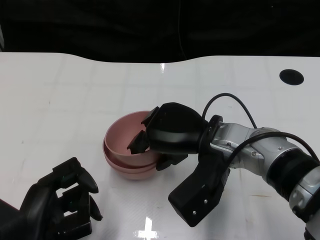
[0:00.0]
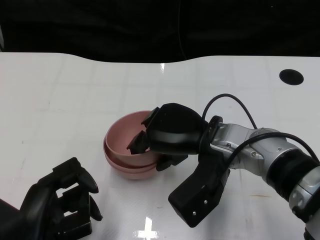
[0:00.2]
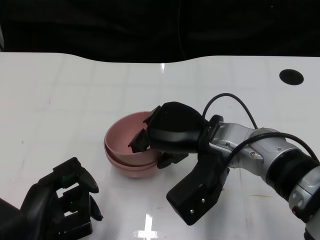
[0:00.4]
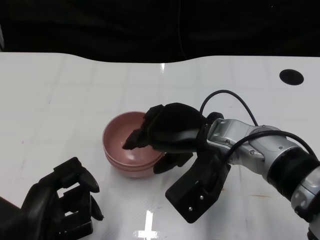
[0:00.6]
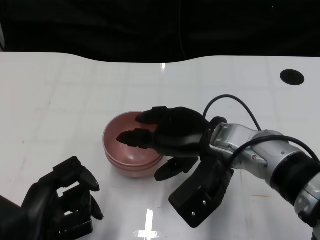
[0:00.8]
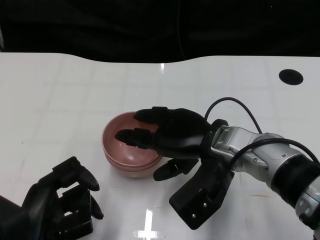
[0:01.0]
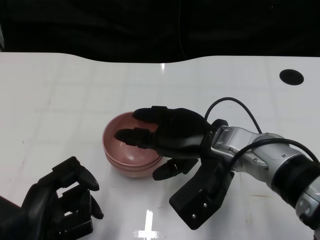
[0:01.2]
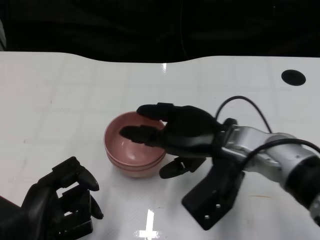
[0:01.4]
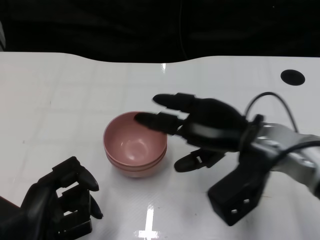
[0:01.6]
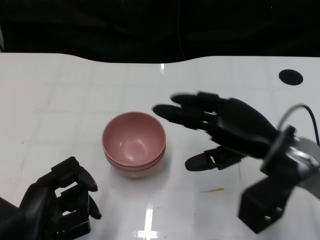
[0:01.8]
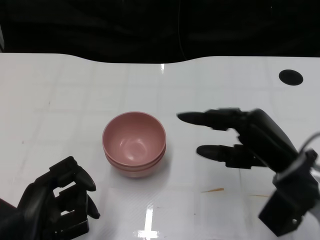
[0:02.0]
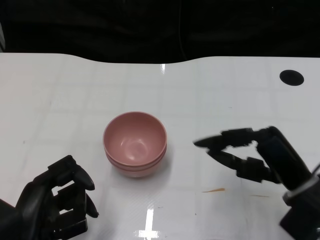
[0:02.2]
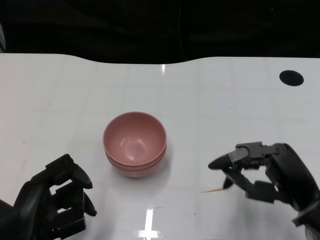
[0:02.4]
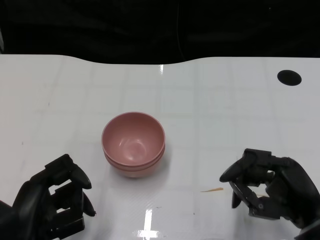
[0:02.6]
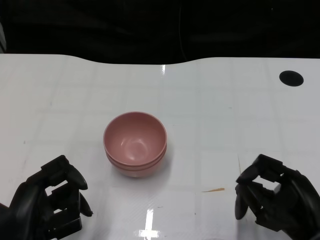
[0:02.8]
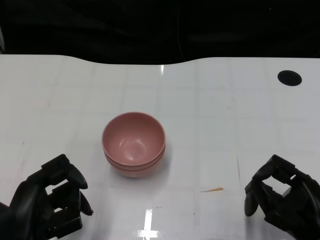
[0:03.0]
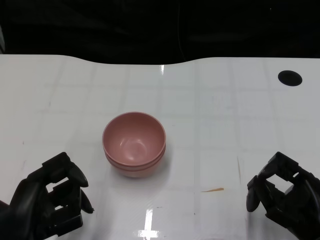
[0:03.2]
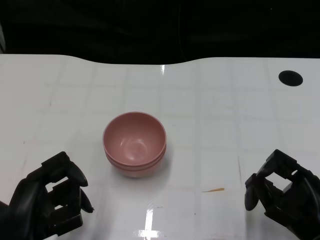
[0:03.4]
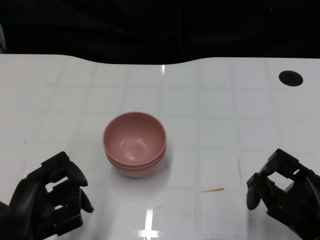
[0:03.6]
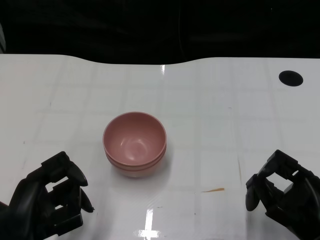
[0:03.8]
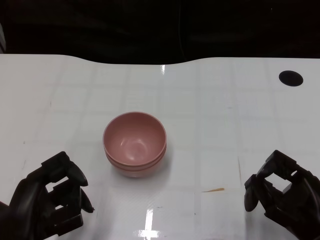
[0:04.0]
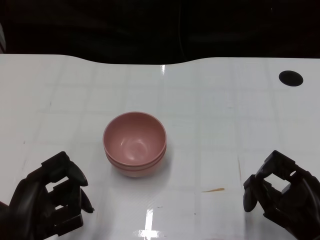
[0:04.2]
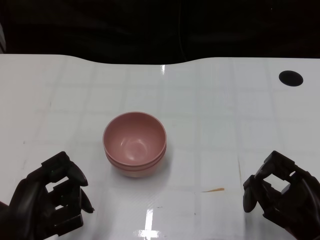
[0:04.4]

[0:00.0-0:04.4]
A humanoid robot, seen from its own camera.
Task of the whole recording: Pick up the bowl on one side of the table and place it on top of the middle bowl, then pick up the bowl on the other side of the table and place it on top of the middle bowls.
0.0 to 1.4 s: The hands move only a little.
1.4 to 3.0 s: The right hand is displaced to the right, backward and downward by about 20 cm.
3.0 to 4.4 s: Both hands stay about where they are.

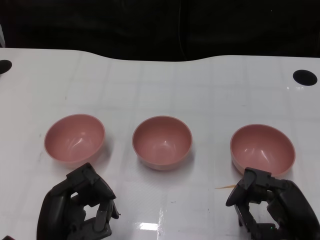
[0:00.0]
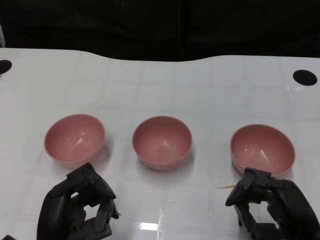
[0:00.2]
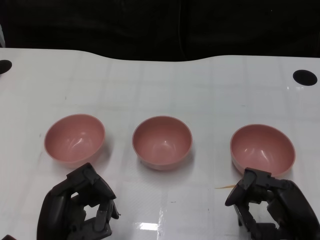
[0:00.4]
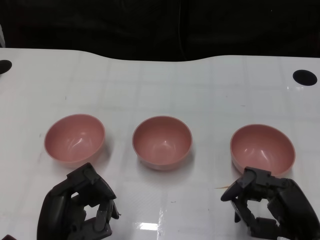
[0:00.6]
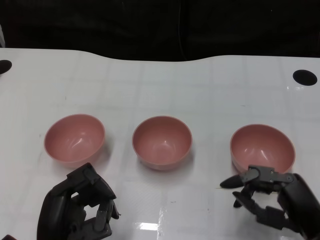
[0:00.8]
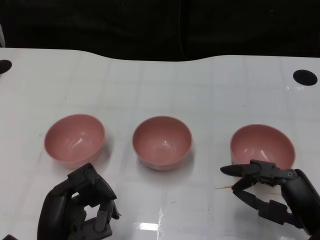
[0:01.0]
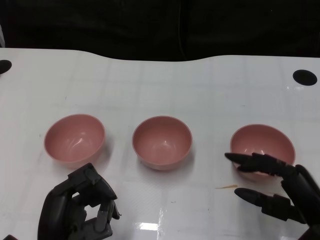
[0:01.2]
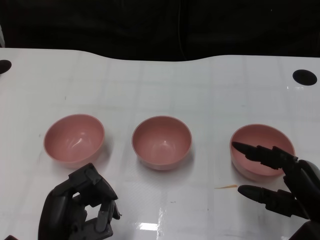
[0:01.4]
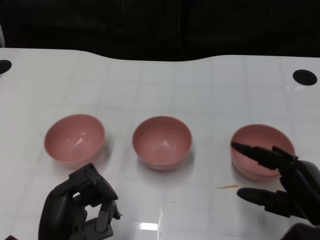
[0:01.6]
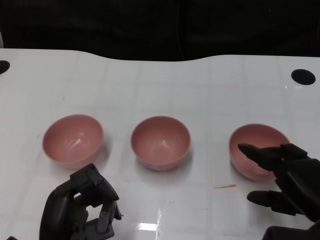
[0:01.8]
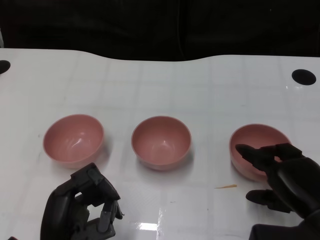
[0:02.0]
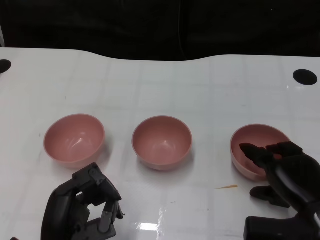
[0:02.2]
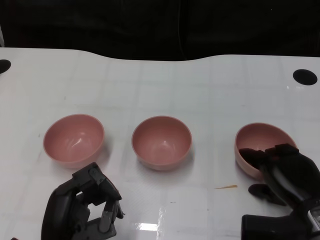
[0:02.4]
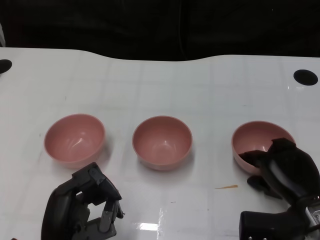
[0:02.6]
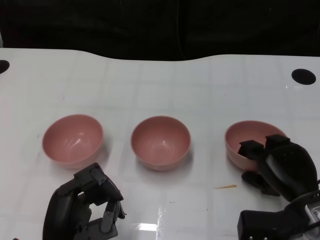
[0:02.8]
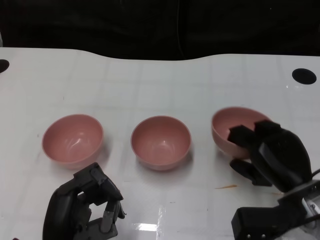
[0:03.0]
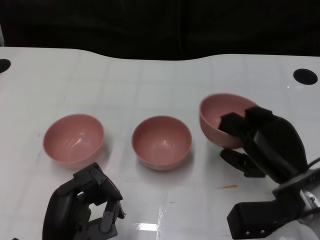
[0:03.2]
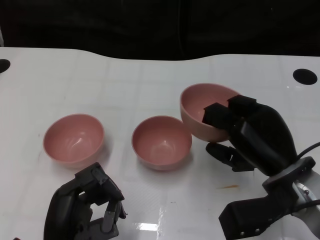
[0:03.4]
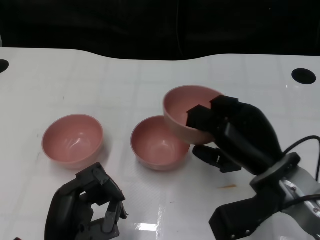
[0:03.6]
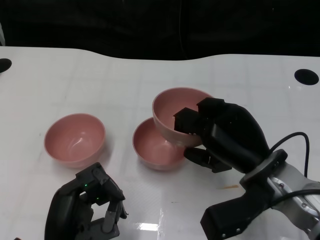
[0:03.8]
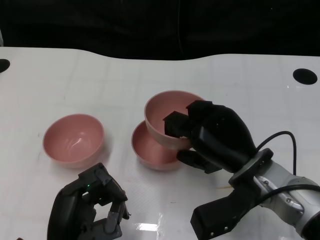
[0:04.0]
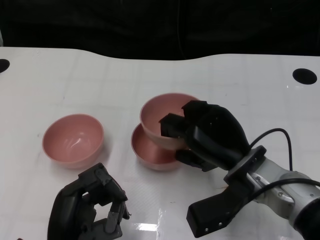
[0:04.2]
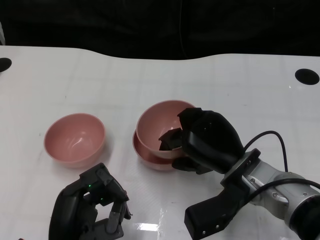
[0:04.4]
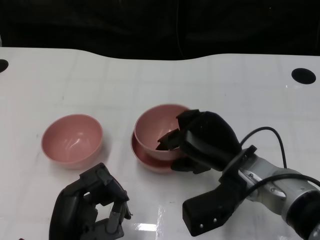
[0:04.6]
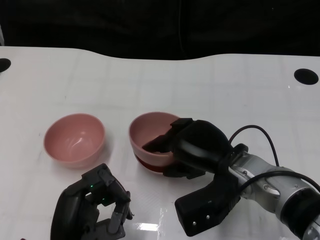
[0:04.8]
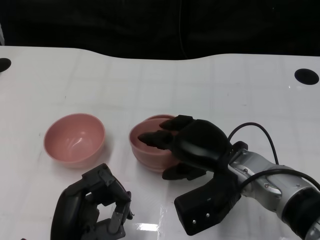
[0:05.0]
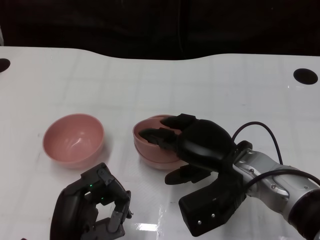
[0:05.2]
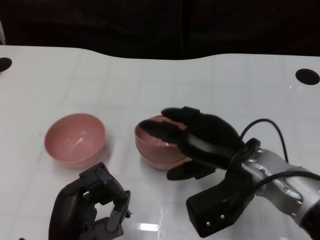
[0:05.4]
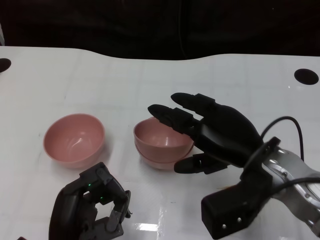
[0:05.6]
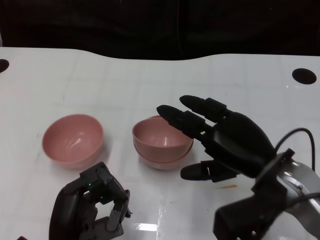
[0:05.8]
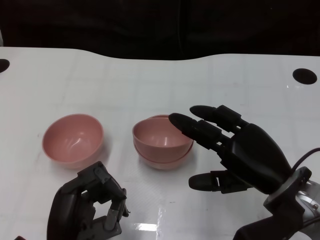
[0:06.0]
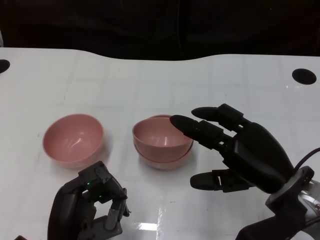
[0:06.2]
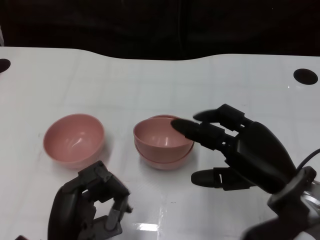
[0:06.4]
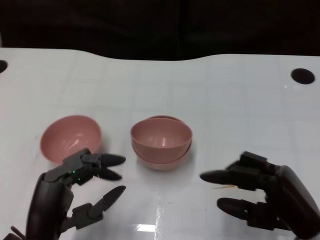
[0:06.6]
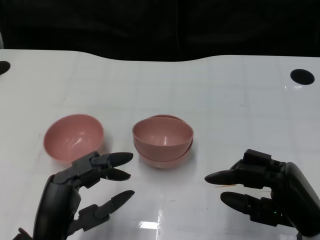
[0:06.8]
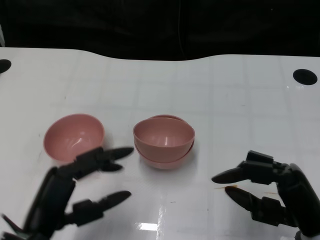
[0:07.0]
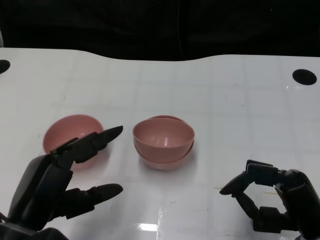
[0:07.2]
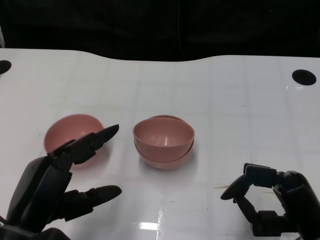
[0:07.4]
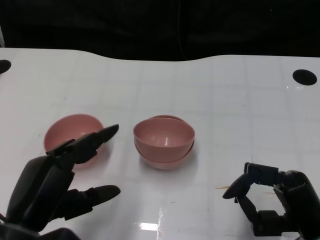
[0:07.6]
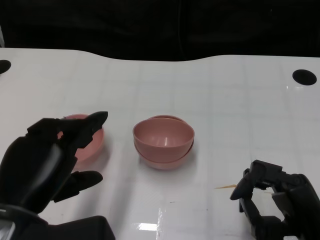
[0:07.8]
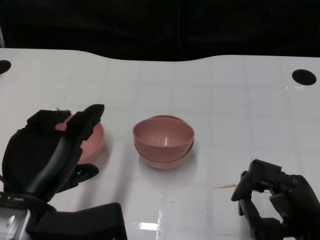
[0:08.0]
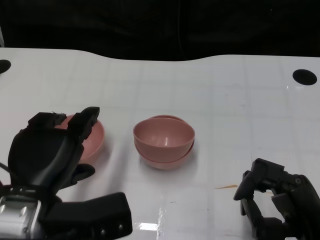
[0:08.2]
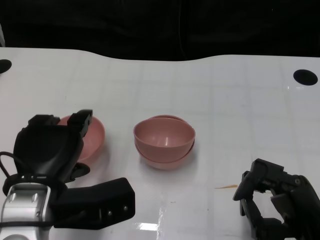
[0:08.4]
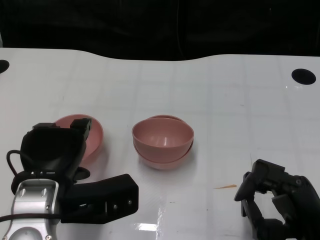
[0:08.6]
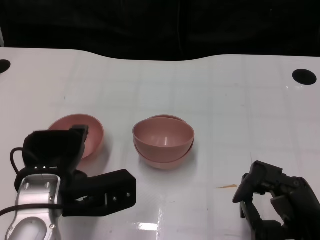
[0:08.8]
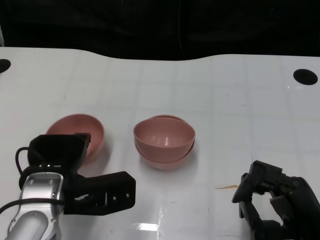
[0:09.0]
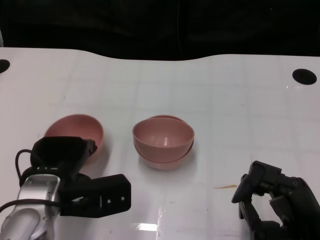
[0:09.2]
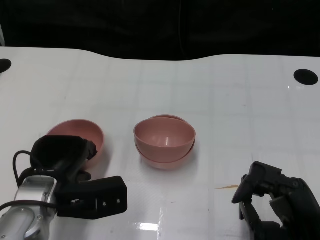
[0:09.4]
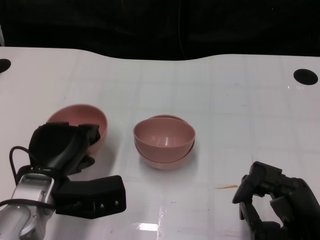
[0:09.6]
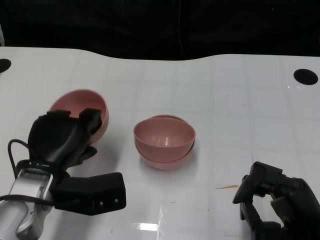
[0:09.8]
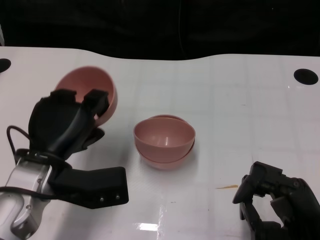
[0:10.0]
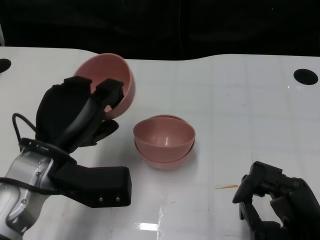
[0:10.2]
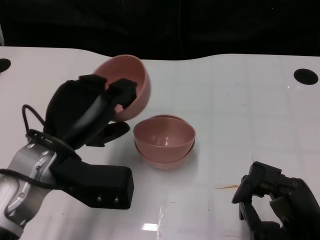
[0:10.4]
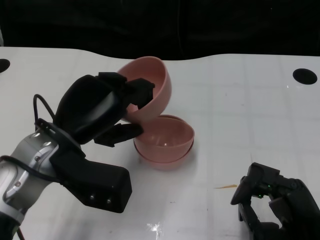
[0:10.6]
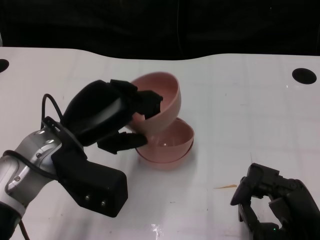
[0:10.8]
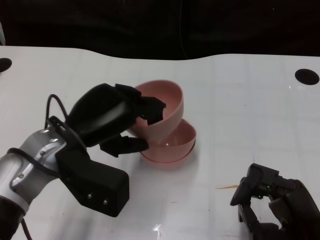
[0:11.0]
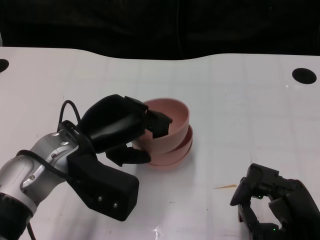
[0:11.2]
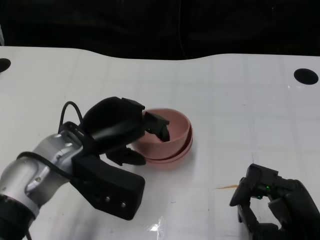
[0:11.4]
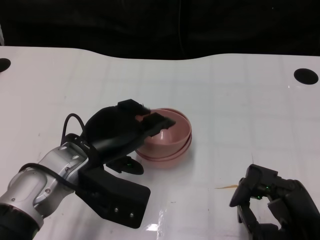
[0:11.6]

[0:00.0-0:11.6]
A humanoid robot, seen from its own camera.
Task of the whole recording: Pick up the bowl on one side of the table and place it on top of the middle bowl, then pick up the bowl on the other side of the table and place it on top of the middle bowls.
Step, 0.6 to 2.8 s: Grasp the bowl on the right with the right gripper.
Step, 3.0 to 6.0 s: Place the bowl on the right onto the bowl in the middle with right gripper.
Step, 6.2 to 9.2 s: Grasp the bowl on the left with the left gripper.
1.4 to 2.8 s: The right hand travels forward by approximately 5 cm.
2.8 to 4.4 s: The right hand goes some 10 cm to the left.
4.4 to 5.8 s: The right hand changes place by roughly 5 cm.
5.8 to 7.2 s: The left hand is displaced upward by roughly 5 cm; the right hand heads downward, backward and to the right, covering roughly 10 cm.
7.2 to 8.8 s: The left hand travels forward by some 10 cm.

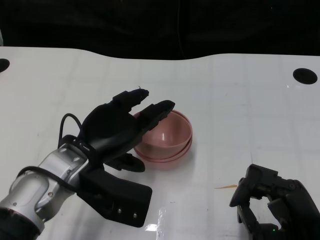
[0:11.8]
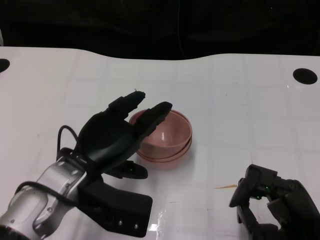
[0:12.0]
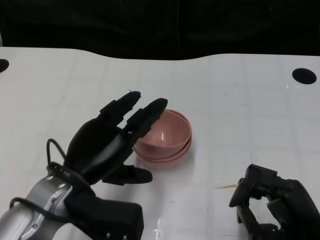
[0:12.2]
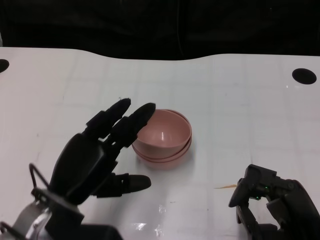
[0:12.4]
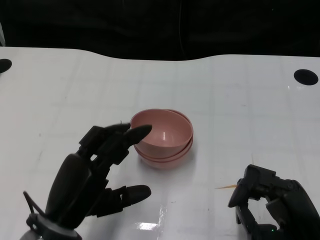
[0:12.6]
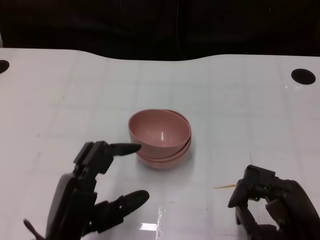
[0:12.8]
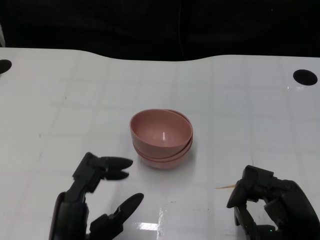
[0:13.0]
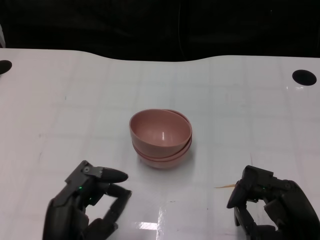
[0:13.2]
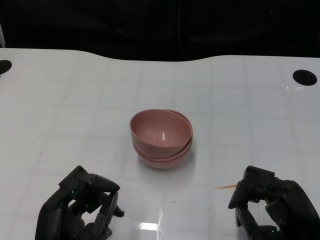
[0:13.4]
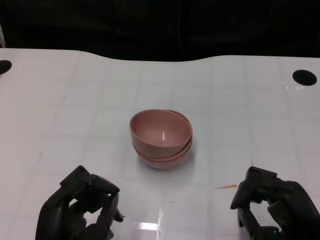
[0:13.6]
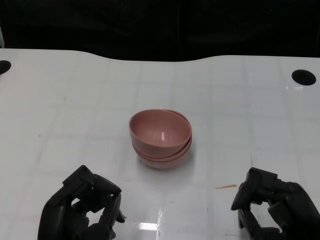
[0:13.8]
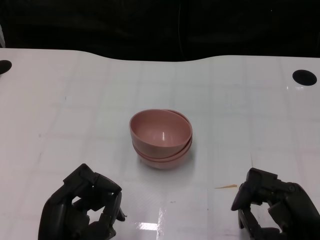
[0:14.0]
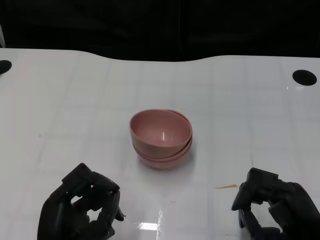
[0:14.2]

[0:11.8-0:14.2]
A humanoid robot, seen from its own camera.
Task of the whole recording: Pick up the bowl on one side of the table and place it on top of the middle bowl, then pick up the bowl on the other side of the table and place it on top of the middle bowls.
11.8 to 13.0 s: The left hand is displaced backward by some 15 cm.

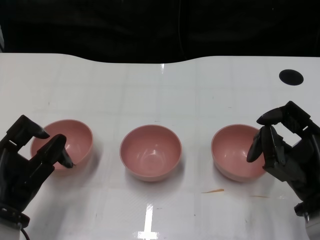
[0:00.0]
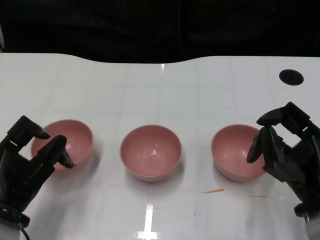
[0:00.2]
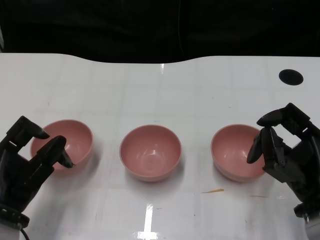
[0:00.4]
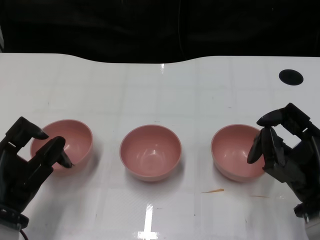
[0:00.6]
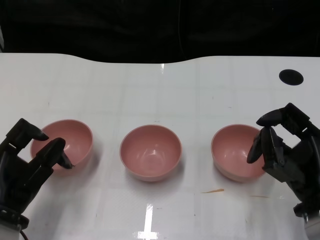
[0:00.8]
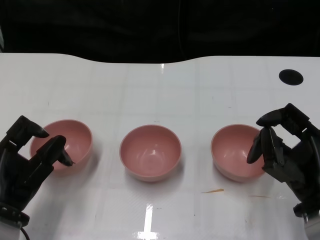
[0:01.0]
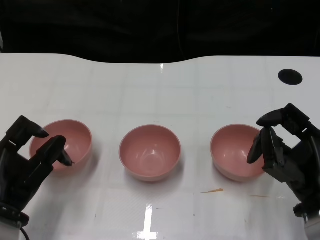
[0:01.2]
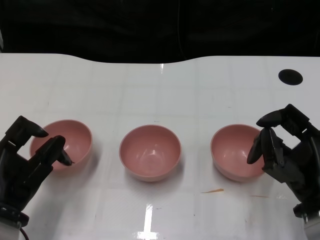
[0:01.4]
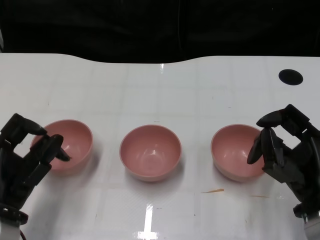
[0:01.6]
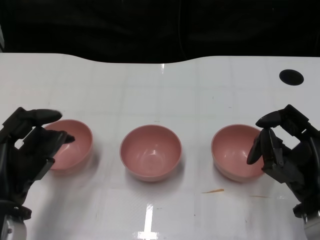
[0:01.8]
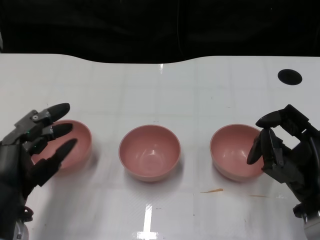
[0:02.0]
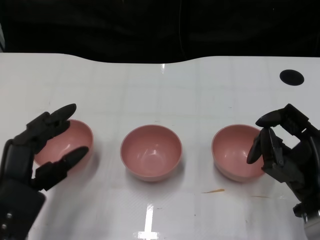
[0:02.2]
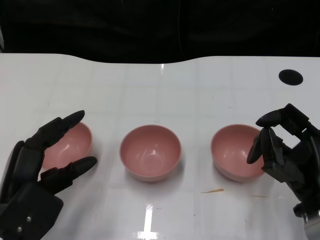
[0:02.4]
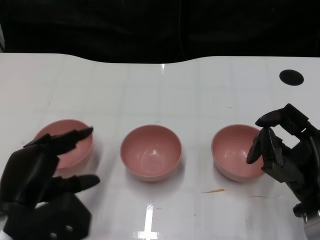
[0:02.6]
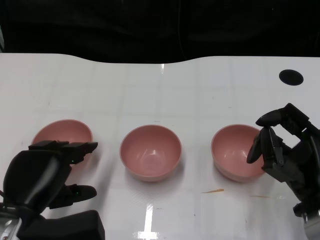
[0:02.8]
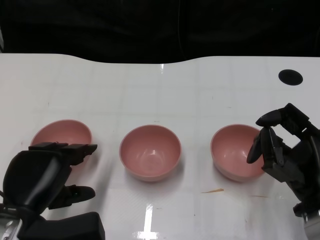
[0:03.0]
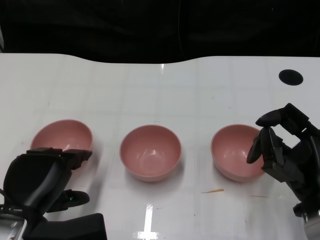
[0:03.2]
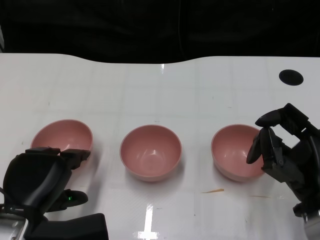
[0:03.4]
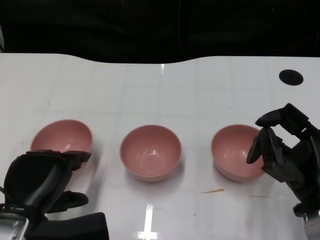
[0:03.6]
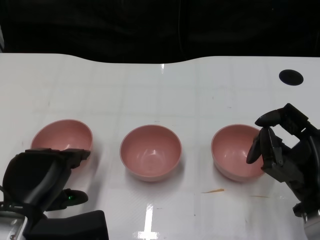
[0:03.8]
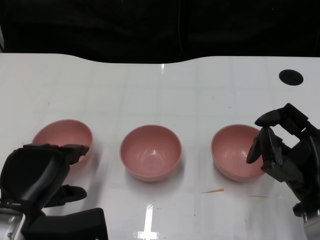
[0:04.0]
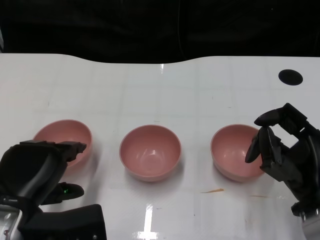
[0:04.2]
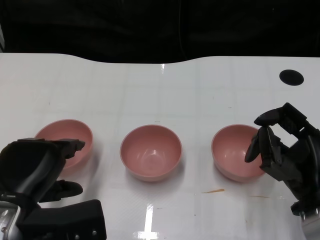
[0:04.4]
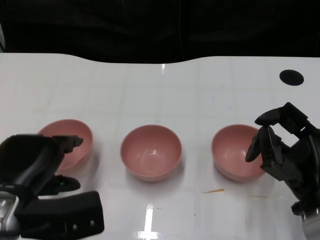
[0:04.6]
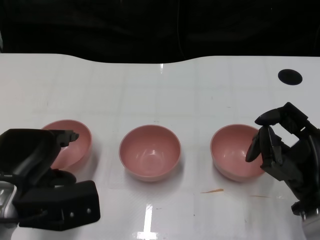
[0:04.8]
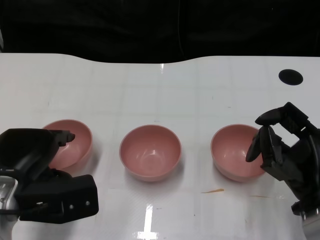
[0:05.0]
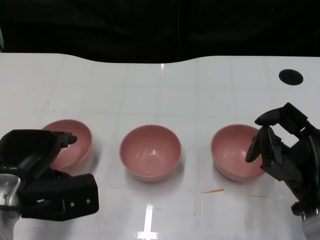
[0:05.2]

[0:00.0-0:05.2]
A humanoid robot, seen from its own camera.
Task of the whole recording: Pick up the bowl on one side of the table and place it on top of the middle bowl, then pick up the bowl on the other side of the table and place it on top of the middle bowls.
3.4 to 5.2 s: The hands stay close to where they were, moving slightly.
